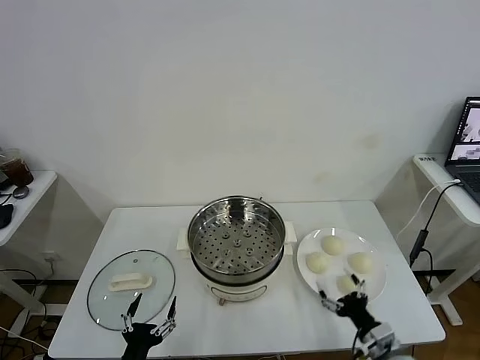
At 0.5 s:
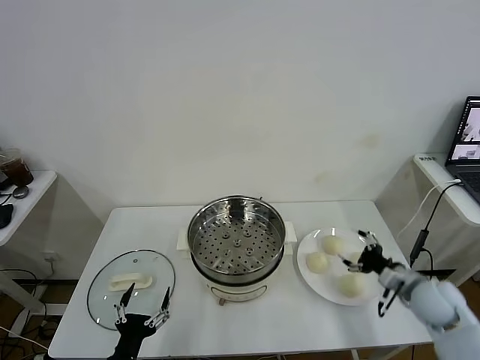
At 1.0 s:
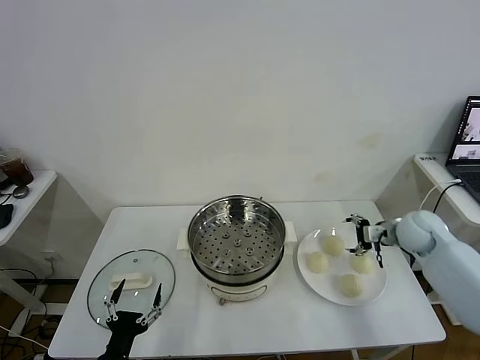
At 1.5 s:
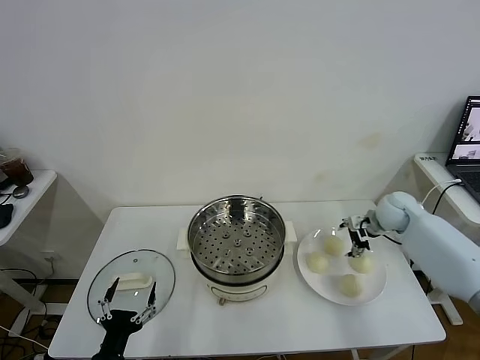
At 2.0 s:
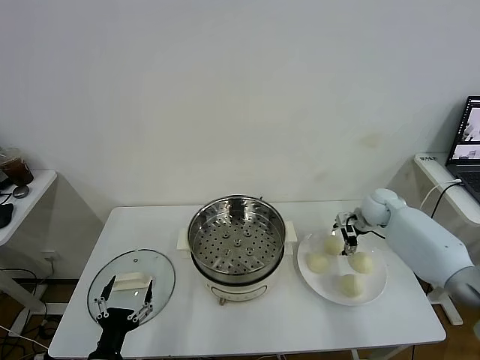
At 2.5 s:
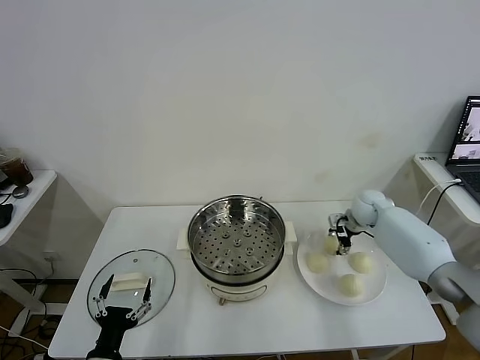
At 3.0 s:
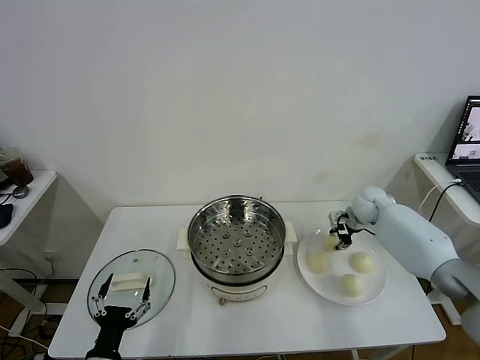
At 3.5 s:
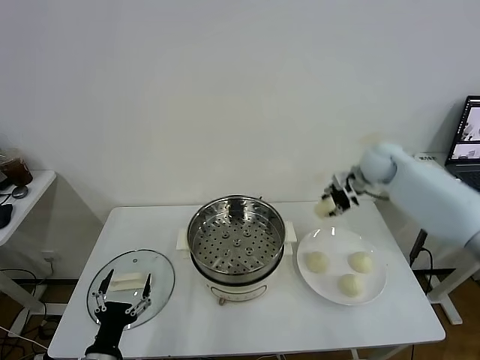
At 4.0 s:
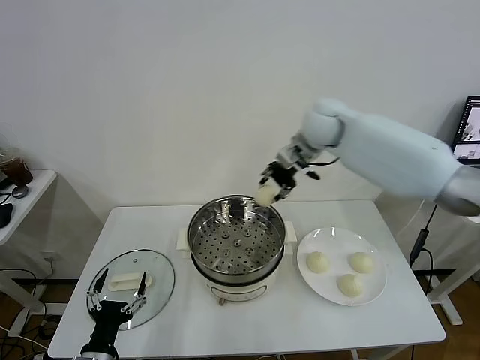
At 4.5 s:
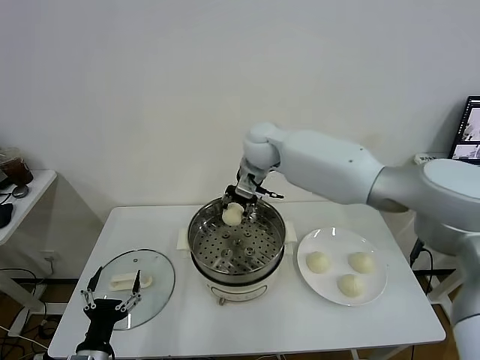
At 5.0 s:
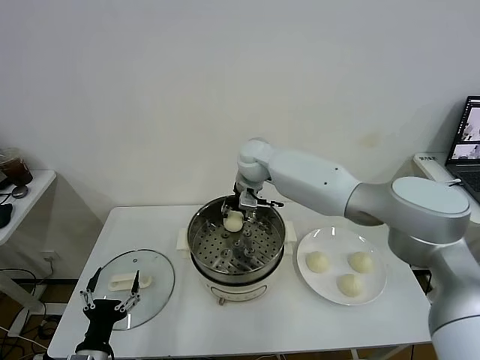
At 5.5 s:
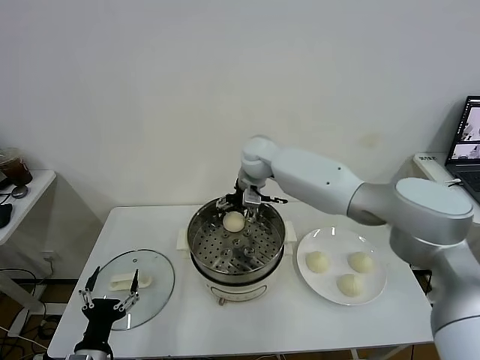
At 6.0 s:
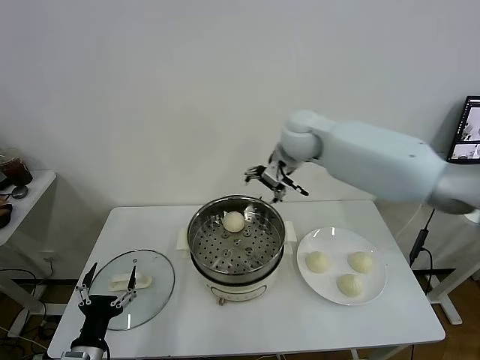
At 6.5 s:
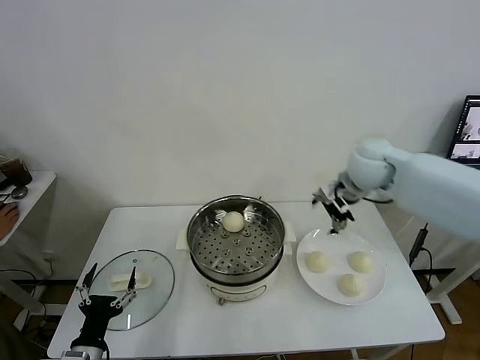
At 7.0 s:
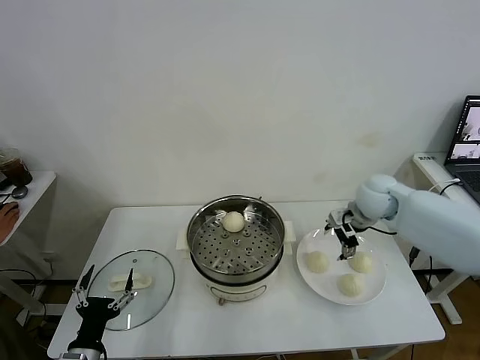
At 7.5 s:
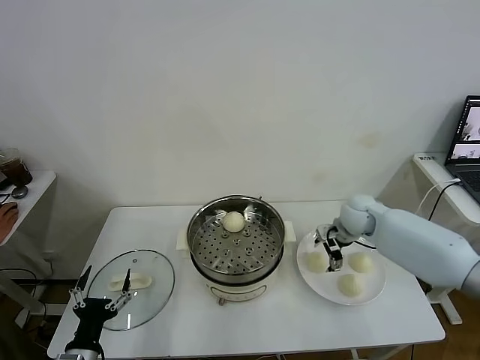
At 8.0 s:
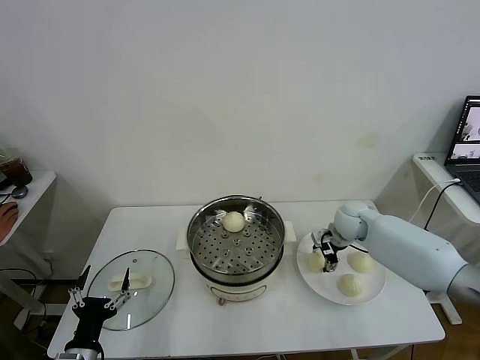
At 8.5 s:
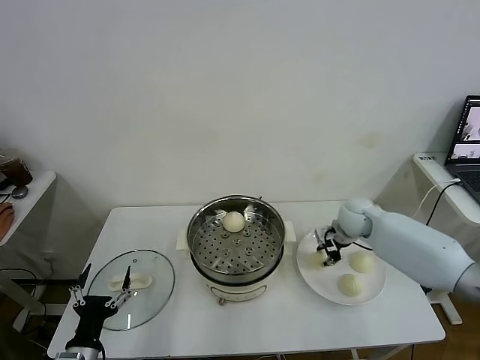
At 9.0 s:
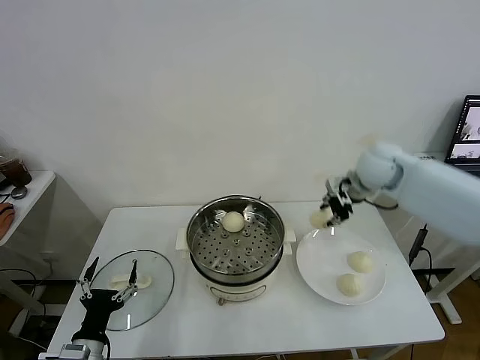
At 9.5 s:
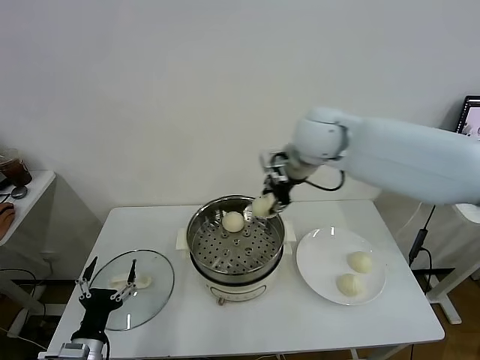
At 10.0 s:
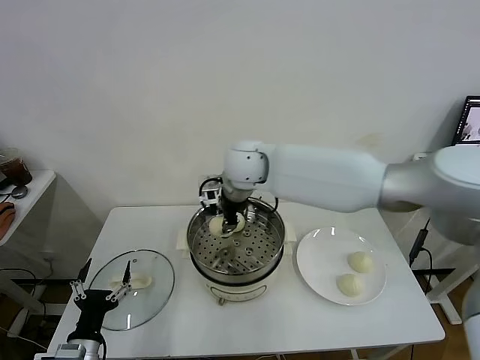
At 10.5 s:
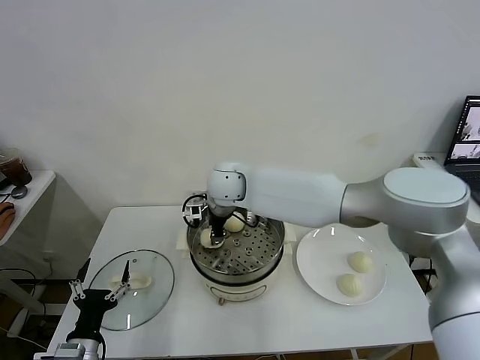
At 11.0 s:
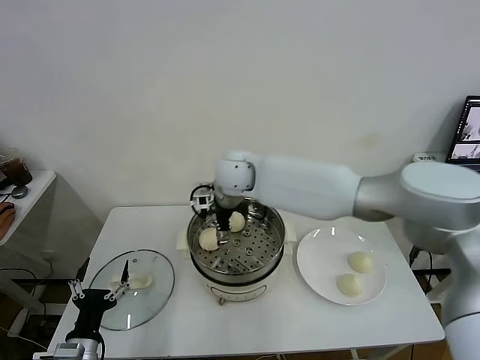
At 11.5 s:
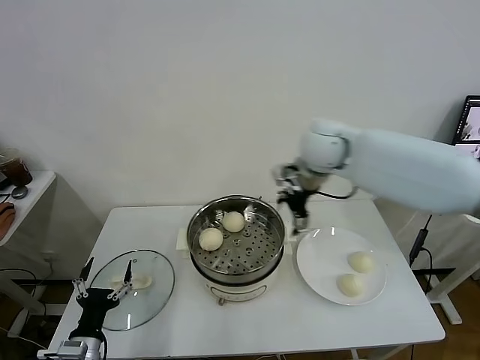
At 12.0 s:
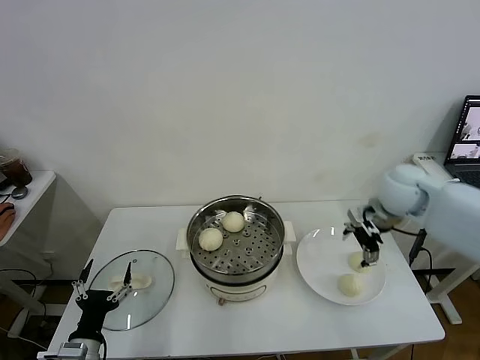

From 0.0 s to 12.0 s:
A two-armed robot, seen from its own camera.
Task of the whole recording: take steamed baozi put them in steamer.
Step, from 0.0 s to 2.5 s: Grasp the baozi in the plate with right gripper.
Step, from 3.0 s to 5.5 s: Place the baozi on the steamer with right gripper.
Step, from 6.0 s to 8.0 s: Grasp the baozi in the plate with right gripper.
Step, from 8.5 s to 11.0 s: Place the baozi on the steamer with right gripper.
From 2.0 s to 4.0 s: The right gripper is displaced to the left and upward by some 35 cm, and closes up.
From 4.0 s to 6.0 s: The right gripper shifts roughly 5 cm to the right, and opens.
From 6.0 s to 8.0 s: The right gripper goes approximately 25 cm downward and to the right, and closes up.
From 8.0 s to 10.0 s: The right gripper shifts approximately 35 cm to the left and upward.
From 10.0 s to 12.0 s: The right gripper heads to the right, covering roughly 35 cm, and opens its fingers.

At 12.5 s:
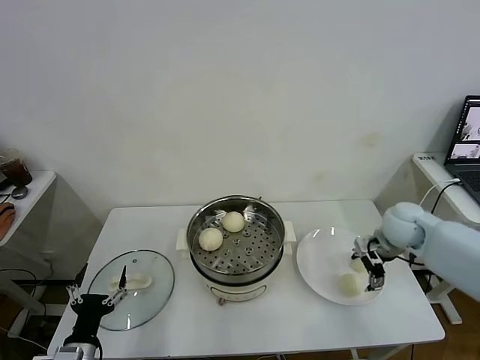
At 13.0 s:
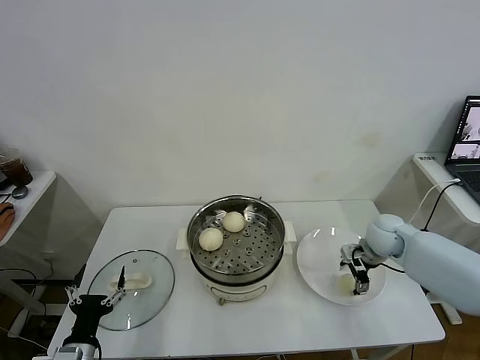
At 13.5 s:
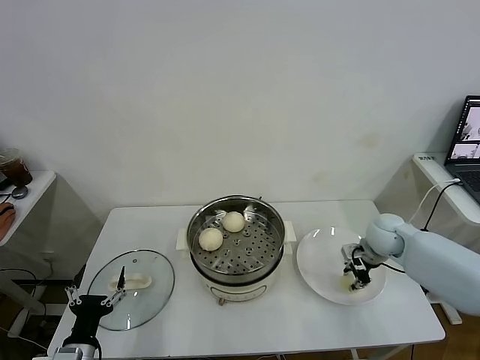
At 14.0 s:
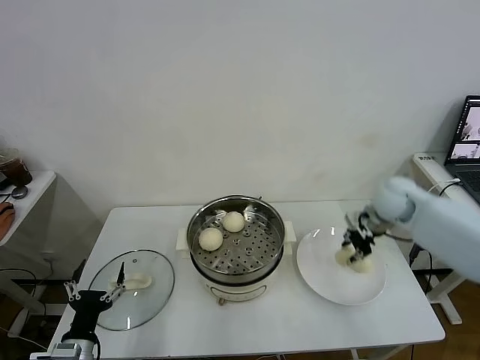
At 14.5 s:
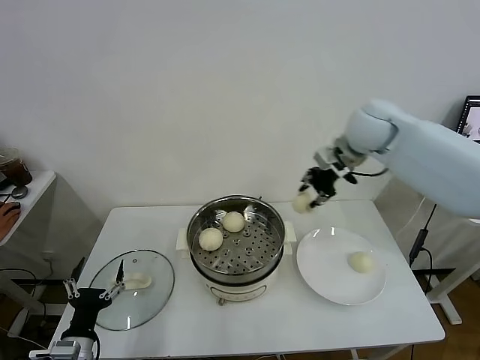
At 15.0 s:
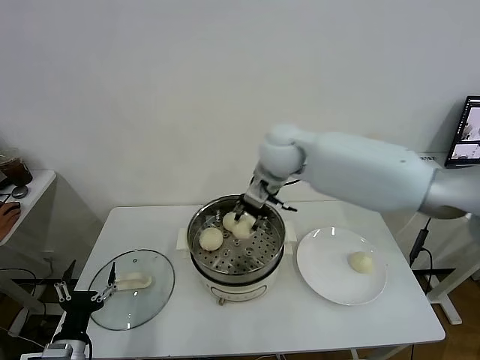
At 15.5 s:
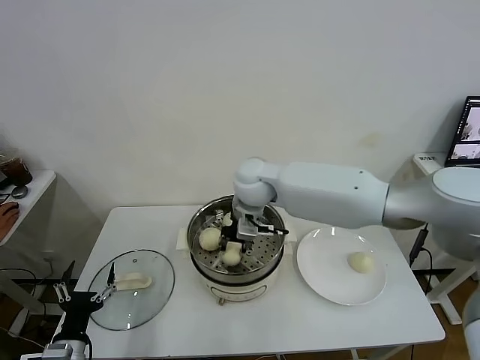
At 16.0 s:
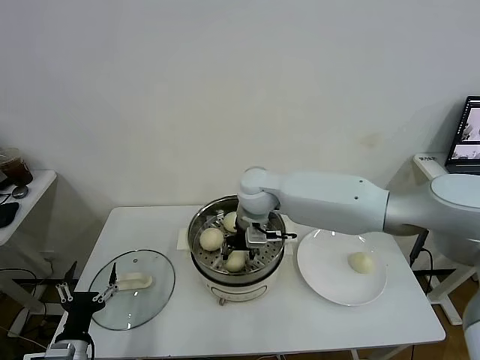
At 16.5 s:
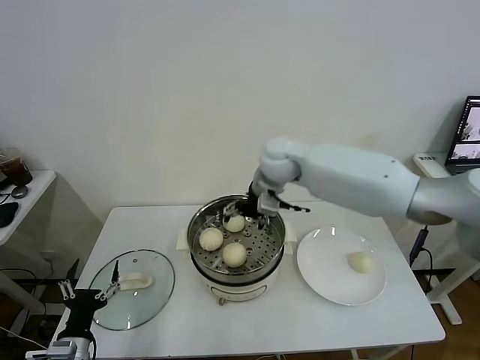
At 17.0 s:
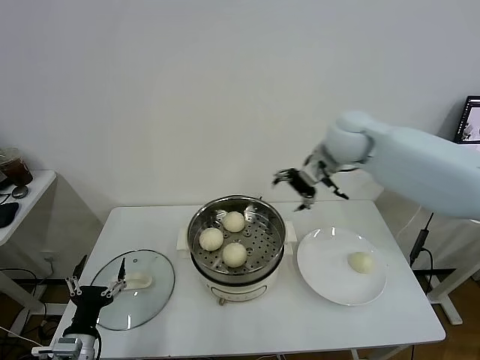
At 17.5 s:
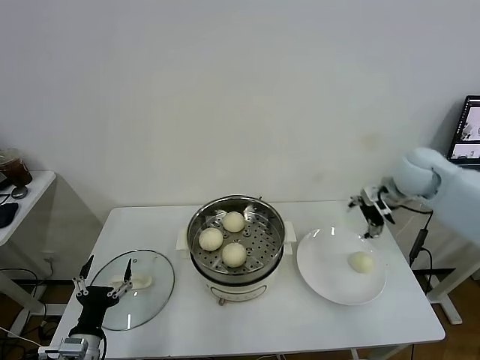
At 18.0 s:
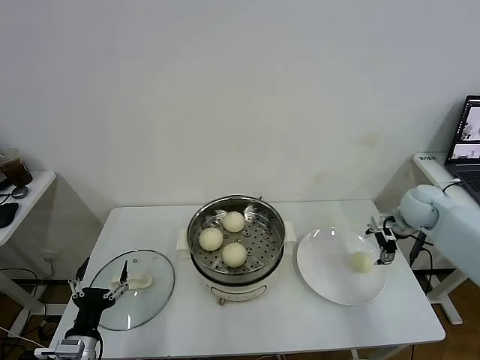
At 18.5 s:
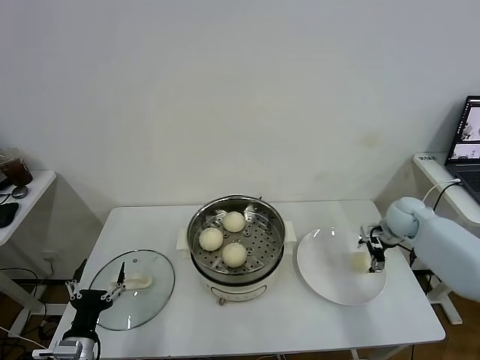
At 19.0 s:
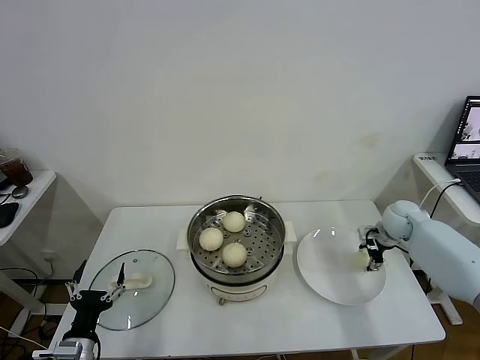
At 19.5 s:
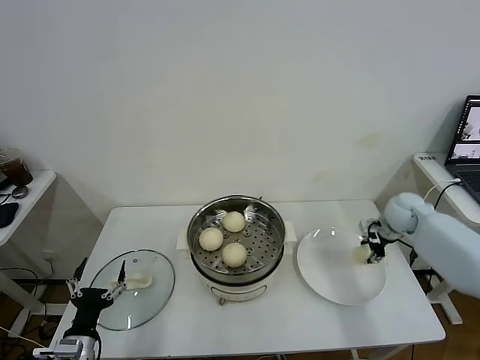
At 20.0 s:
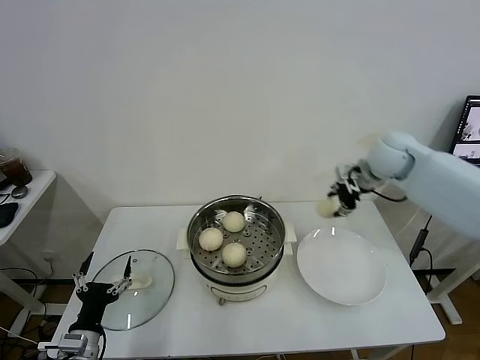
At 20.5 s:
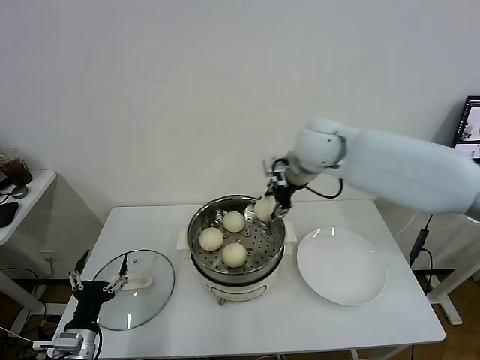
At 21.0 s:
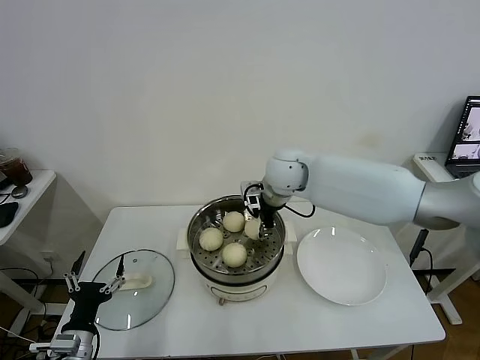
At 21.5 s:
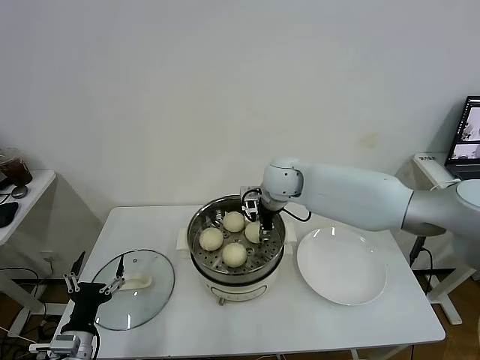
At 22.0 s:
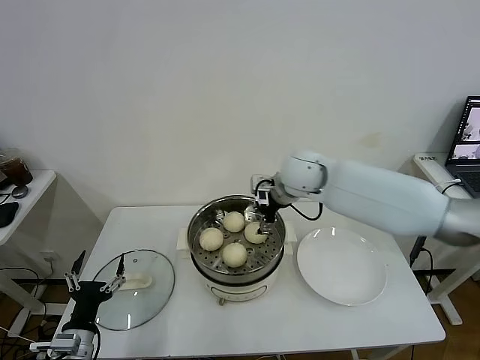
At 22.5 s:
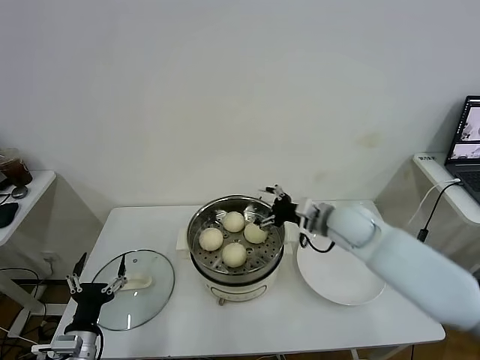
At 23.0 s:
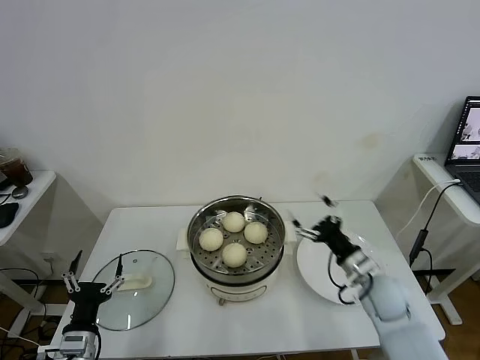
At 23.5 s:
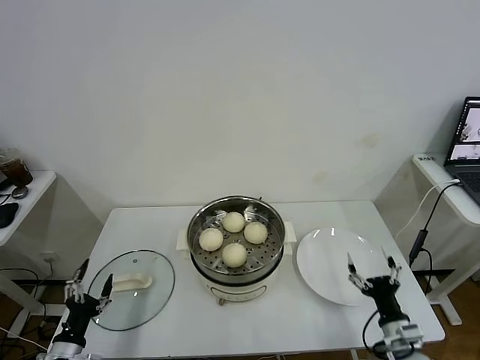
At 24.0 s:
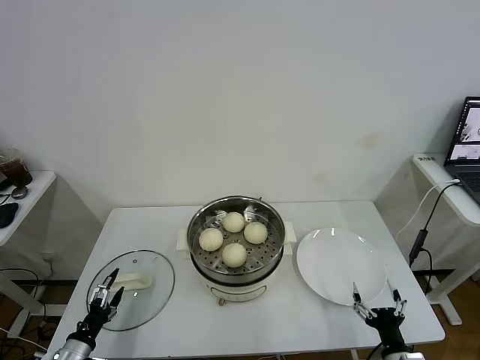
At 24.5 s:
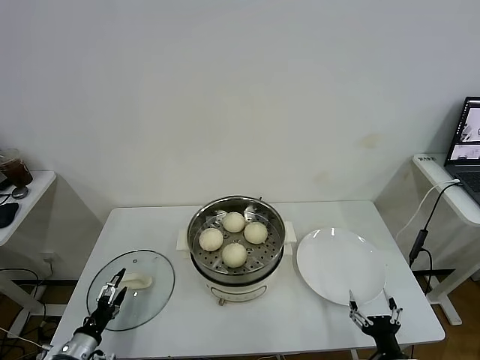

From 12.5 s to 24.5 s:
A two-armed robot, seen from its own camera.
Task of the whole recording: take steamed baozi put them in steamer.
Step, from 14.0 s to 16.0 s: Place the baozi on the steamer with right gripper.
Step, from 16.5 s to 19.0 s: Grasp the baozi in the plate with right gripper.
Step, from 19.5 s to 21.5 s: Place the baozi on the steamer with right gripper.
From 12.5 s to 14.5 s: The right gripper goes approximately 25 cm upward and to the left, and closes its fingers.
From 14.5 s to 16.5 s: The right gripper goes roughly 15 cm to the left and downward, and opens.
From 16.5 s to 18.5 s: The right gripper shifts roughly 35 cm to the right and downward.
From 18.5 s to 20.5 s: The right gripper is displaced to the left and upward by roughly 35 cm, and closes up.
From 20.5 s to 22.5 s: The right gripper is displaced downward, to the right and backward by some 20 cm, and opens.
From 22.5 s to 24.5 s: The right gripper goes approximately 40 cm backward and downward. Meanwhile the left gripper heads downward and to the left, covering about 10 cm.

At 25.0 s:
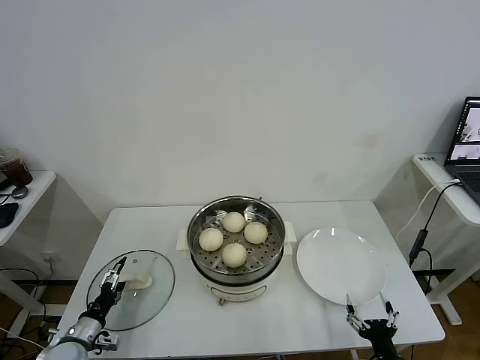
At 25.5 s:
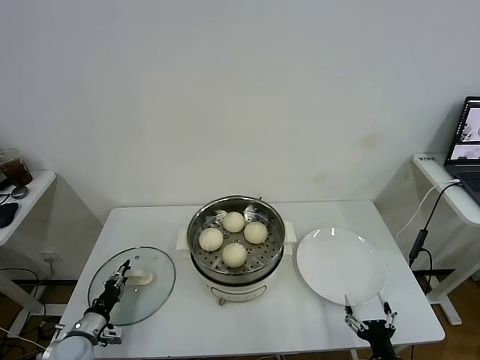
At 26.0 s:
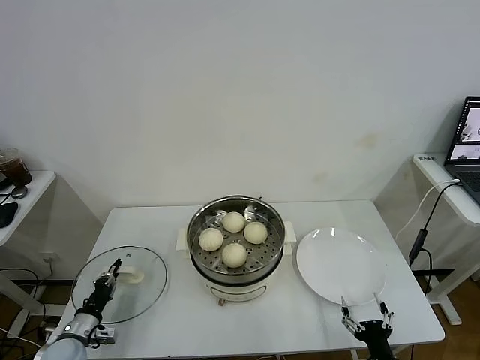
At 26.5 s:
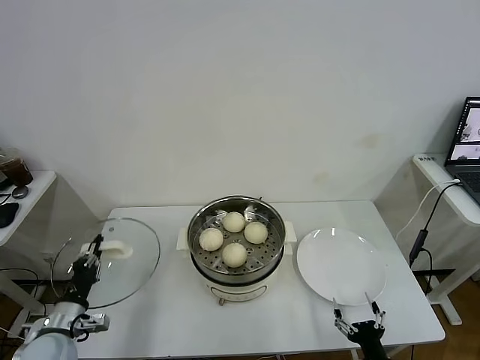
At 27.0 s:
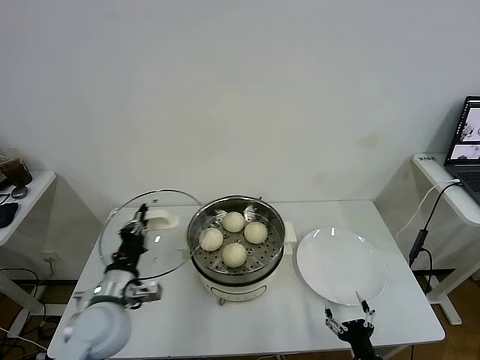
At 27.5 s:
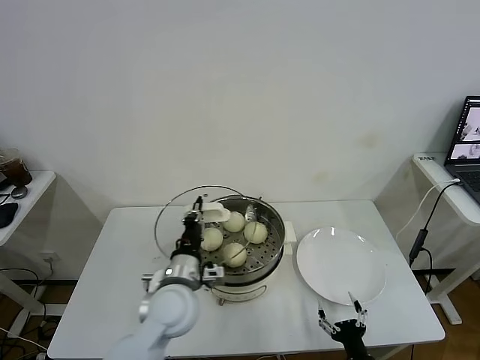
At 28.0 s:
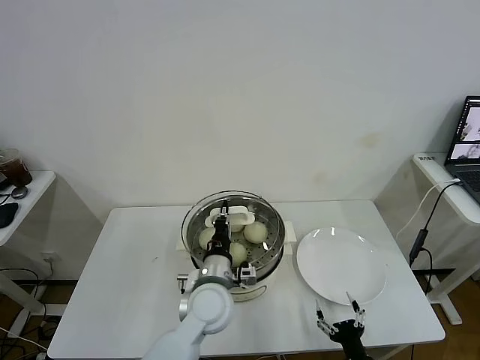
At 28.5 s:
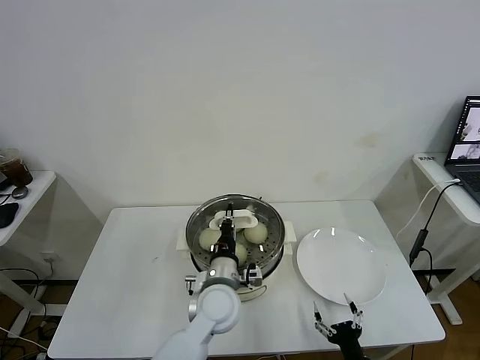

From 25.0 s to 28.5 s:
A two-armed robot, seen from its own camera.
Task of the whole recording: take steamed baozi put them in steamer.
From 25.0 s to 27.0 s: The left gripper moves upward and to the right, approximately 25 cm, and closes.
From 27.0 s to 28.5 s: The left gripper is displaced to the right by about 20 cm.
